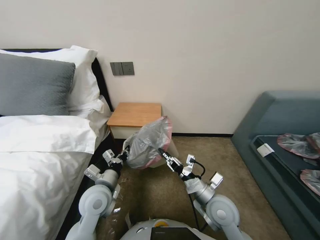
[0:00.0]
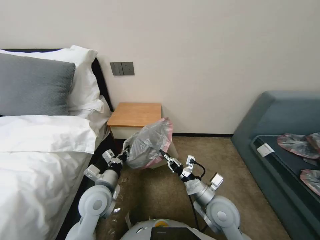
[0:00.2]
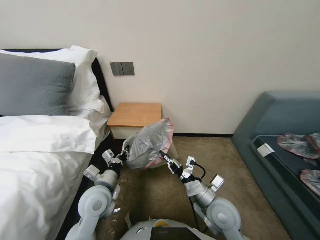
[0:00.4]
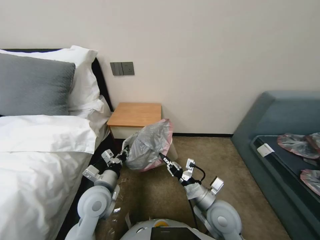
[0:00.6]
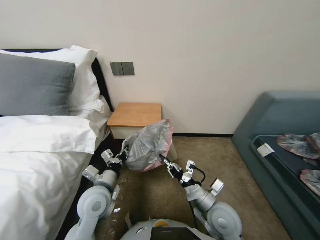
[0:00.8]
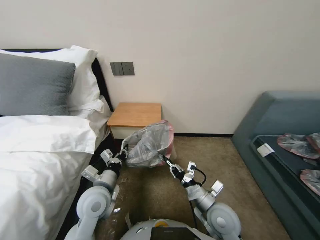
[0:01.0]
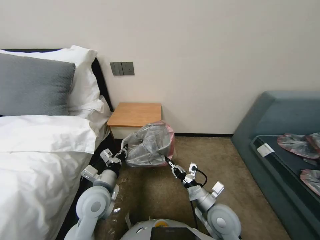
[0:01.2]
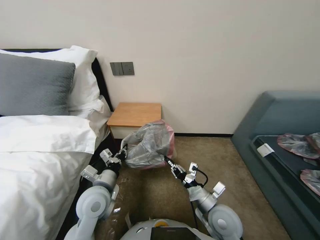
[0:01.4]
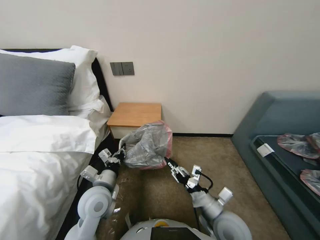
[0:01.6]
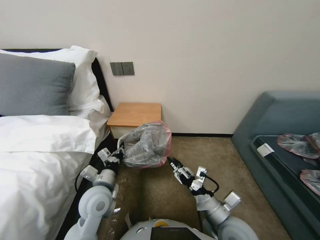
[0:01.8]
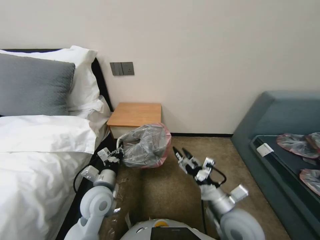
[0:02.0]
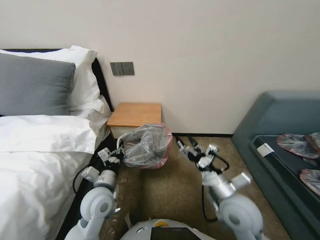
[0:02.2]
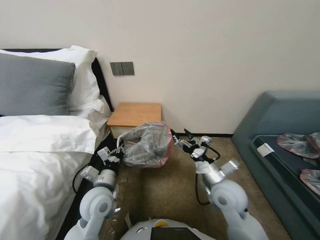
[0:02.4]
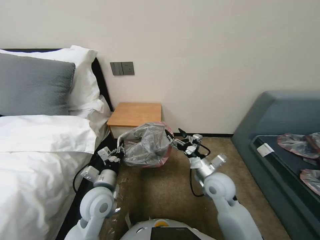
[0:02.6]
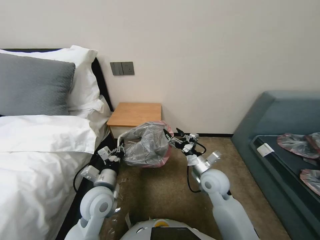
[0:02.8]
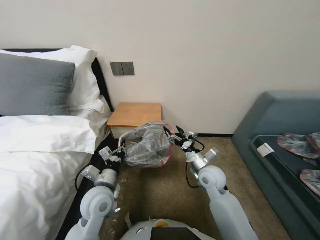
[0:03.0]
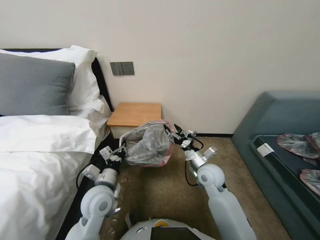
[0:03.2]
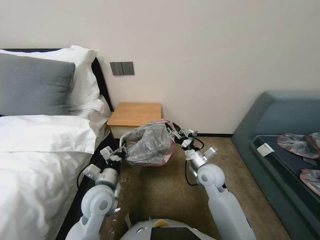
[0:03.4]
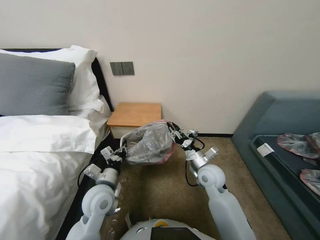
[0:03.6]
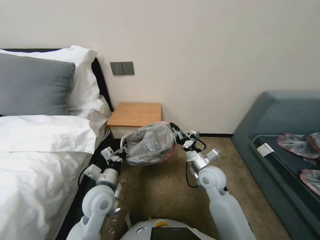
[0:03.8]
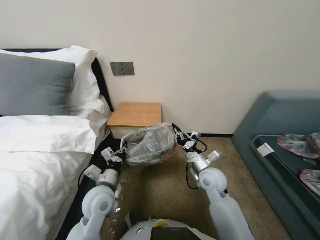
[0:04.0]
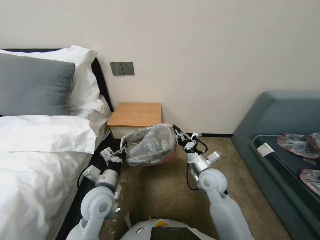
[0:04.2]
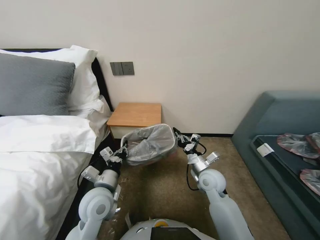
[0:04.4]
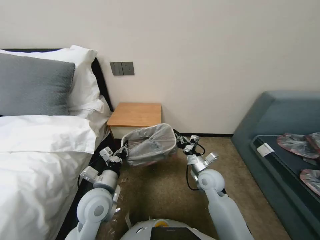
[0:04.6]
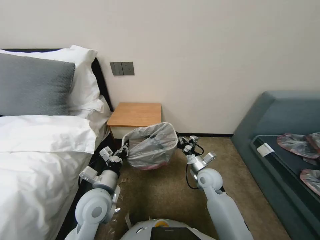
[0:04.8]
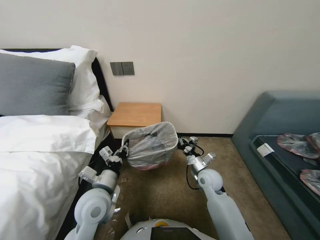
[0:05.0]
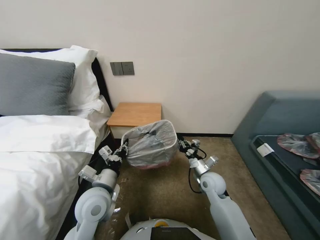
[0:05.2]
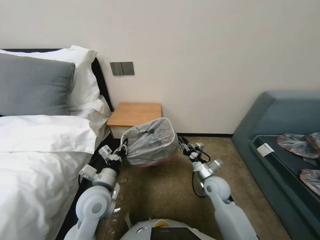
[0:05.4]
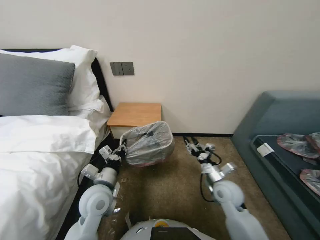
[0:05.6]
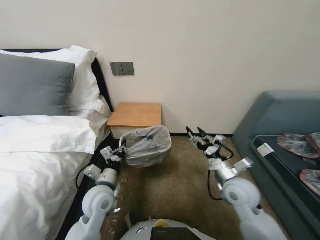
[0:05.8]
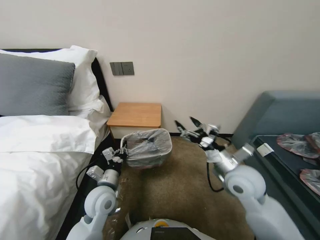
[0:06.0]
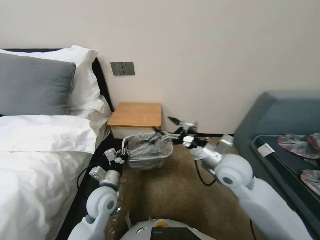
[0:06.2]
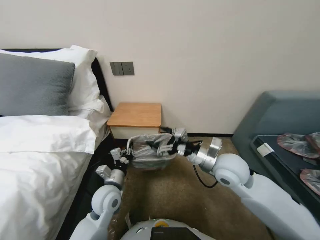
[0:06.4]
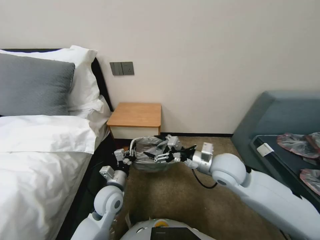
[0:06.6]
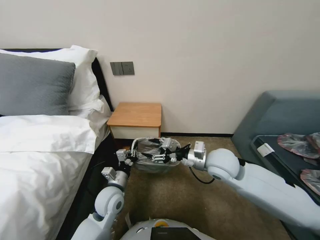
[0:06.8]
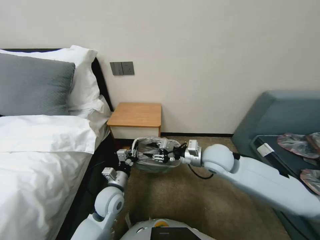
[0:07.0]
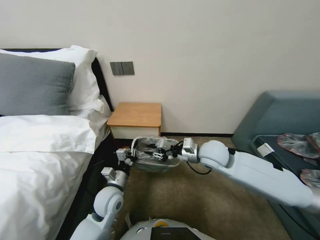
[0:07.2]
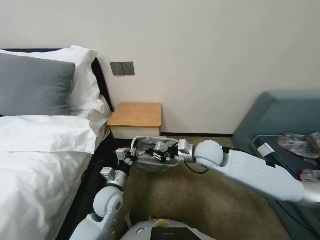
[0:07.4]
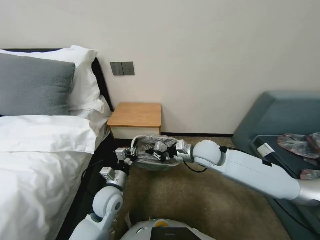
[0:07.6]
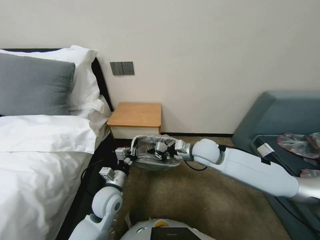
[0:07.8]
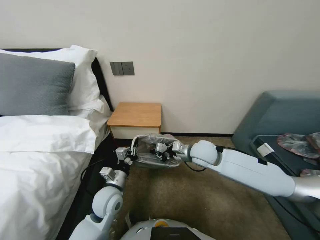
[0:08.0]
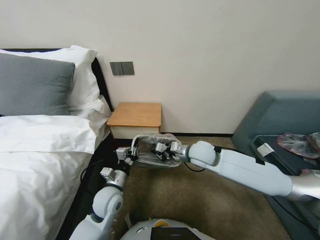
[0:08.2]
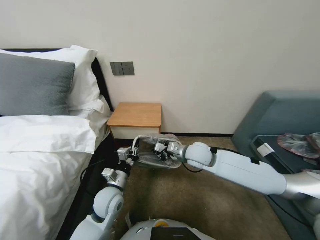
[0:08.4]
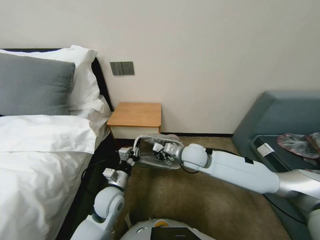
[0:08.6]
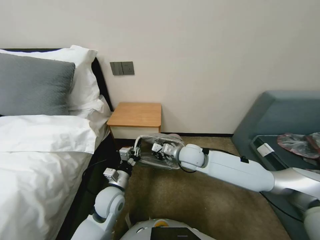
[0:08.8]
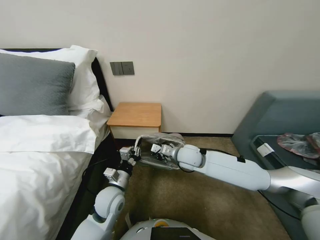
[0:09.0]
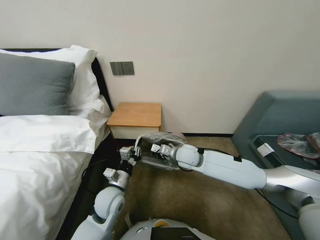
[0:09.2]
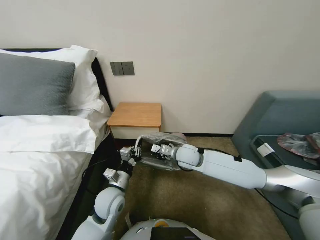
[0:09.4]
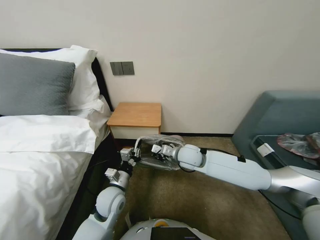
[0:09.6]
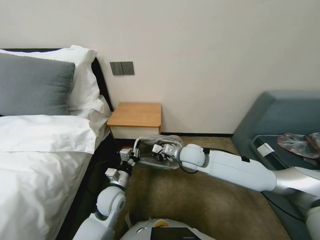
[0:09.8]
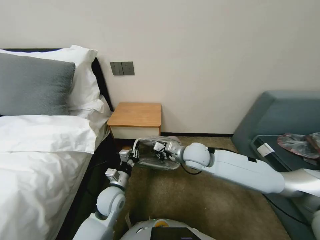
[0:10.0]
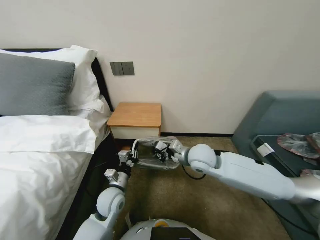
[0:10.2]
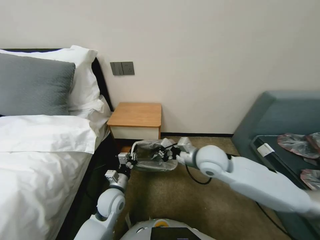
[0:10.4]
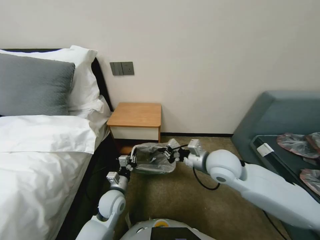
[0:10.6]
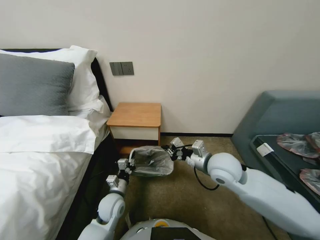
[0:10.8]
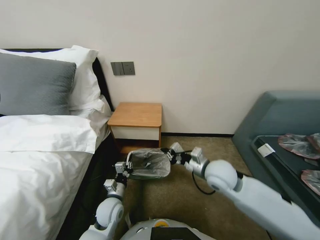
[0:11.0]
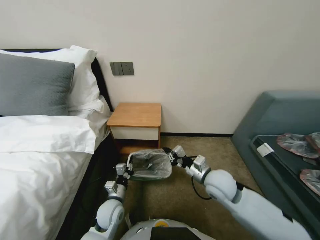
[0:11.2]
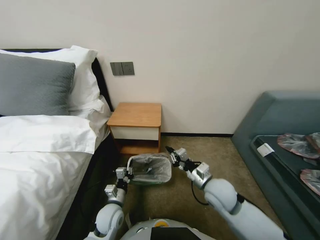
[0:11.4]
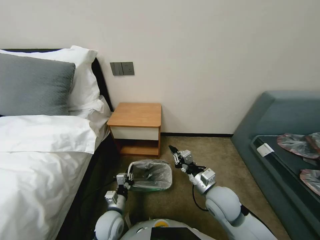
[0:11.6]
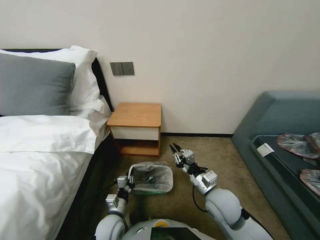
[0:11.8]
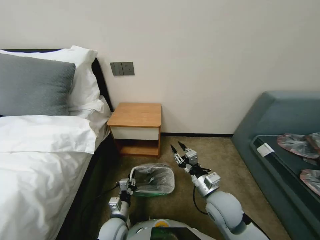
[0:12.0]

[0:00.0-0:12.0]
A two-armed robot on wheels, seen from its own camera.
Task of the whole recording: Pick up the garbage bag from the table and place it over the trash can.
0:00.0 to 0:01.6: The grippers move only a little.
0:01.6 to 0:03.0: The right gripper is displaced forward by about 15 cm, and opens its fingers.
0:03.0 to 0:04.4: The right gripper closes.
0:04.4 to 0:06.0: The right gripper shifts some 10 cm upward, backward and to the right, and opens.
0:06.0 to 0:07.6: The right gripper goes some 15 cm forward and to the left, and closes up.
0:07.6 to 0:09.0: The right gripper shifts roughly 5 cm to the left.
0:09.0 to 0:10.4: The right gripper shifts by about 5 cm.
0:10.4 to 0:12.0: The two grippers go about 15 cm backward and downward.

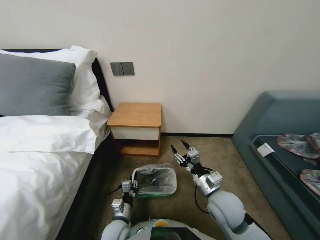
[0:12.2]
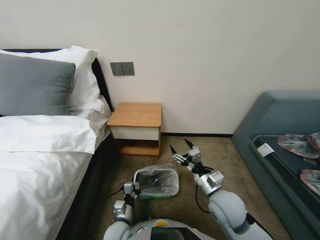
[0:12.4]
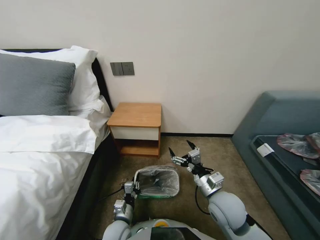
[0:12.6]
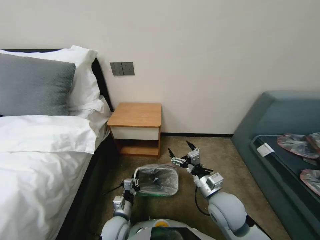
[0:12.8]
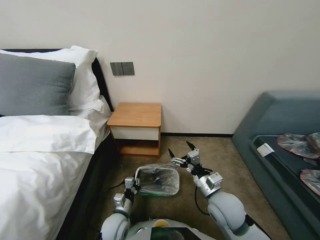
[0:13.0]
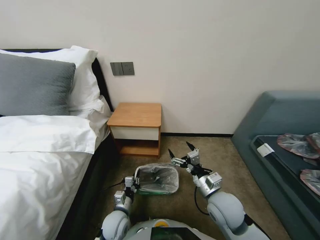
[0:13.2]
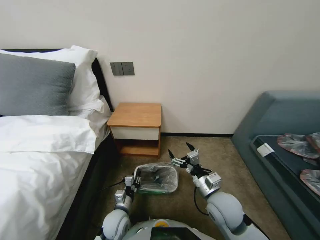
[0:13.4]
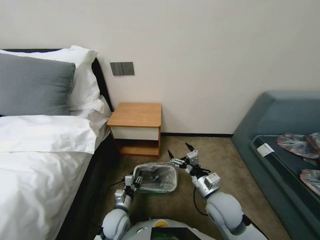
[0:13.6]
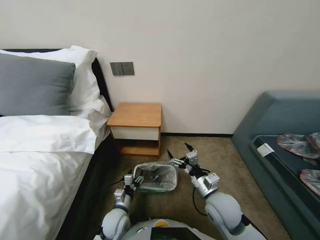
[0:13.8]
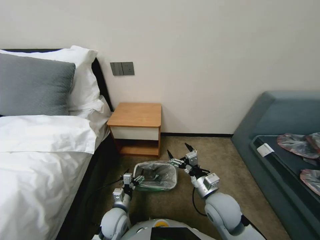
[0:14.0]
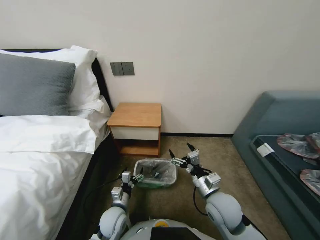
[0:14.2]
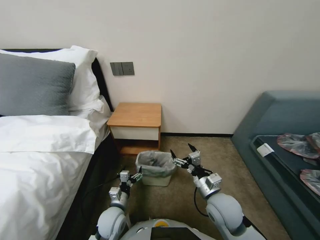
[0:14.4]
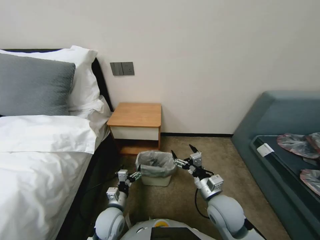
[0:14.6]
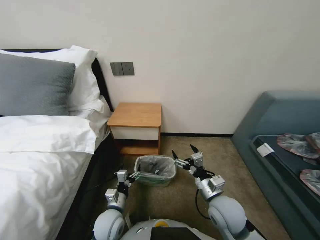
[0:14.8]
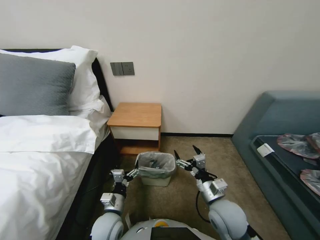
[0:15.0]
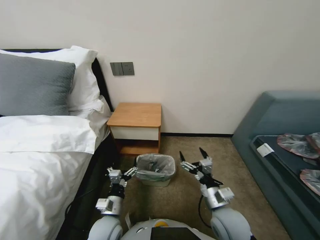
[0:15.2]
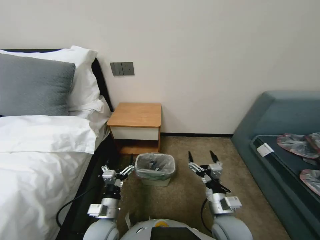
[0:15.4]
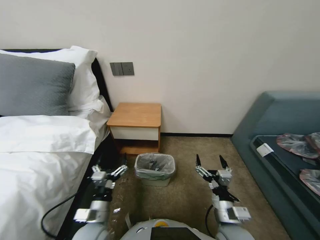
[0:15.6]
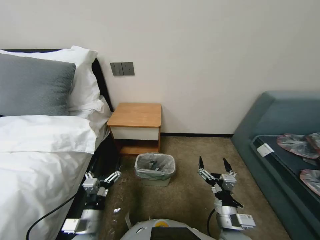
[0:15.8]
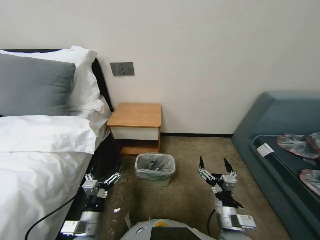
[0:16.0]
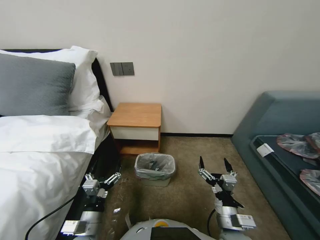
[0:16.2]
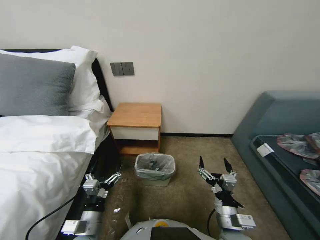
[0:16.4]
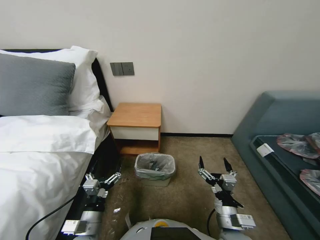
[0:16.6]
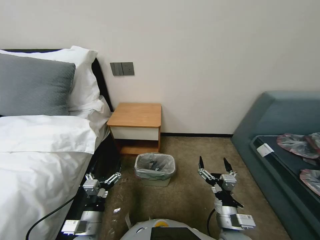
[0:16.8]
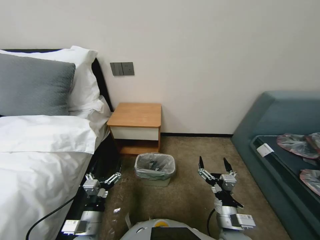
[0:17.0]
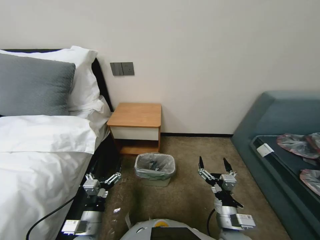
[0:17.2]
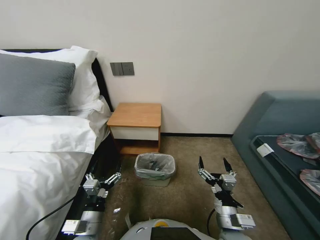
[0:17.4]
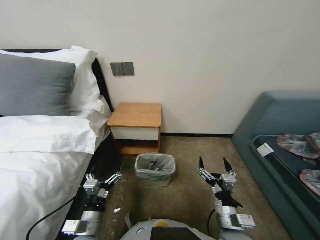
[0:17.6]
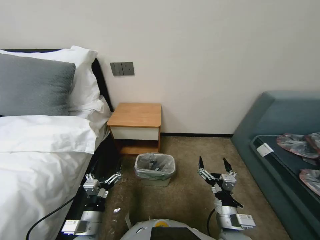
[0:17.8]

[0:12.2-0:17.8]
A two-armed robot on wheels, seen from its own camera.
Task of the whole recording: Pick up the garbage bag from the table and place it over the trash can.
0:12.2 to 0:13.6: The right gripper opens.
0:13.6 to 0:15.0: The left gripper travels upward by roughly 5 cm, and opens its fingers.
0:15.0 to 0:16.4: The two grippers go approximately 5 cm backward.
0:16.4 to 0:17.8: Neither gripper changes place.

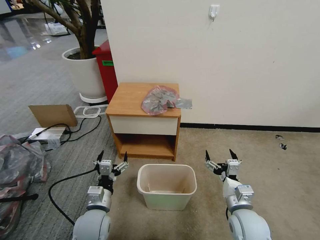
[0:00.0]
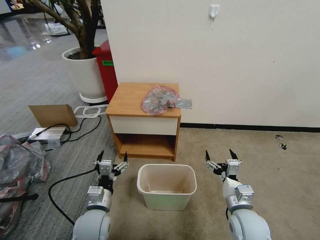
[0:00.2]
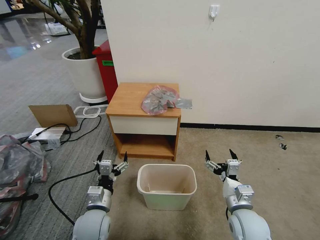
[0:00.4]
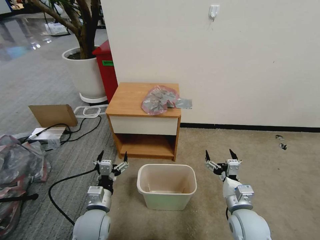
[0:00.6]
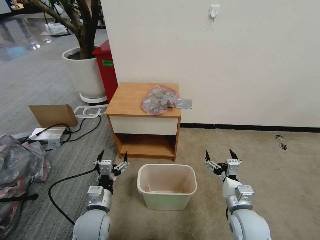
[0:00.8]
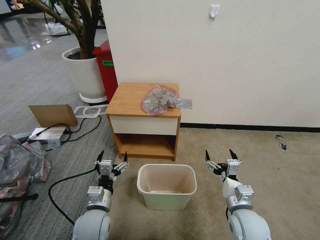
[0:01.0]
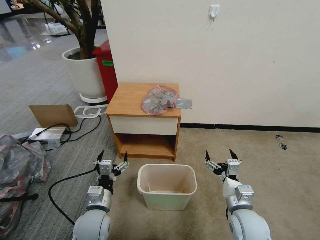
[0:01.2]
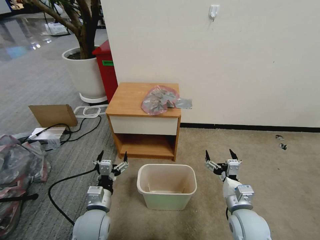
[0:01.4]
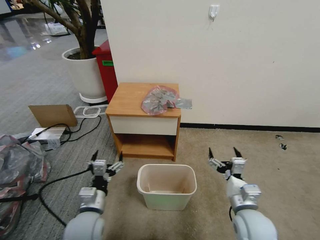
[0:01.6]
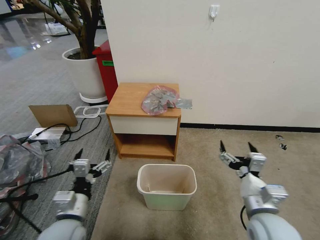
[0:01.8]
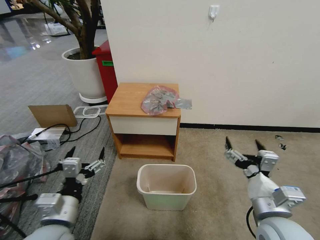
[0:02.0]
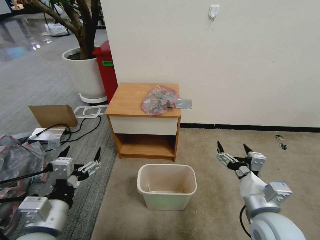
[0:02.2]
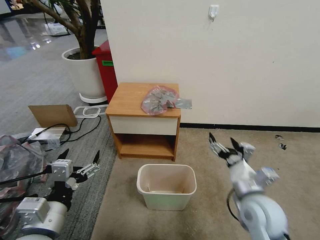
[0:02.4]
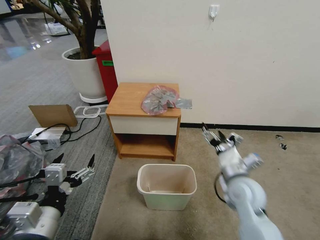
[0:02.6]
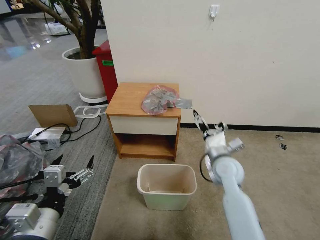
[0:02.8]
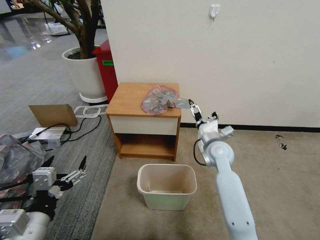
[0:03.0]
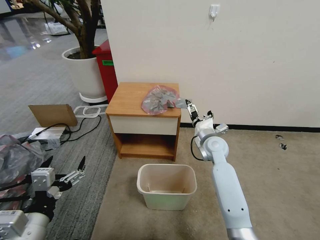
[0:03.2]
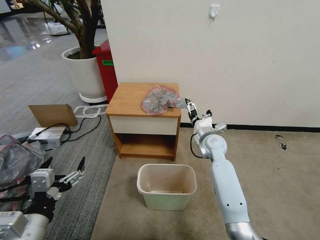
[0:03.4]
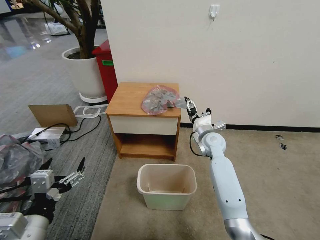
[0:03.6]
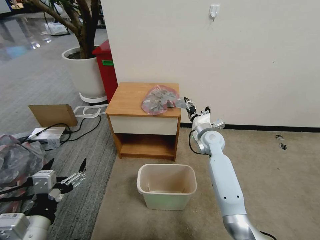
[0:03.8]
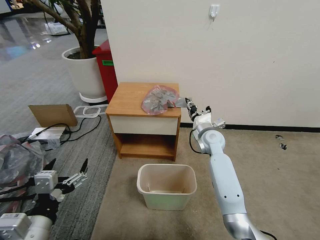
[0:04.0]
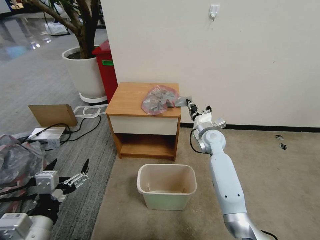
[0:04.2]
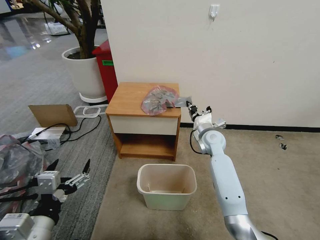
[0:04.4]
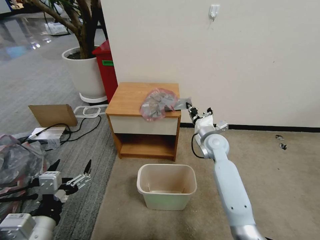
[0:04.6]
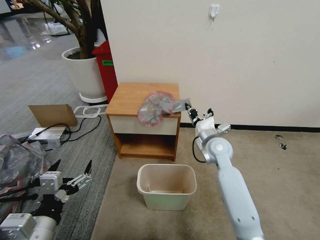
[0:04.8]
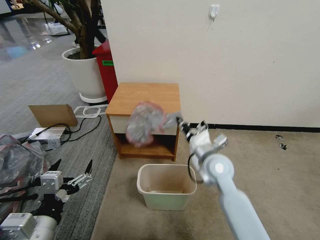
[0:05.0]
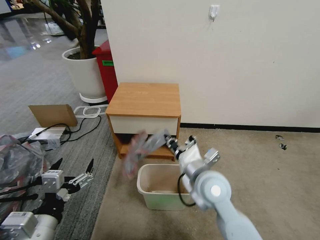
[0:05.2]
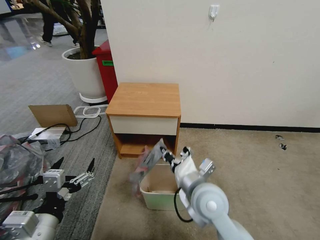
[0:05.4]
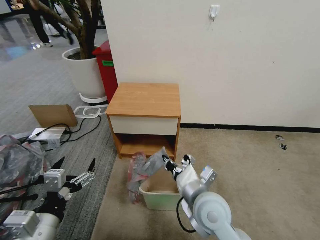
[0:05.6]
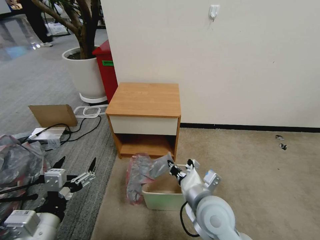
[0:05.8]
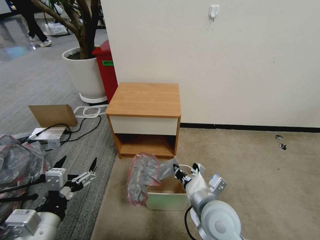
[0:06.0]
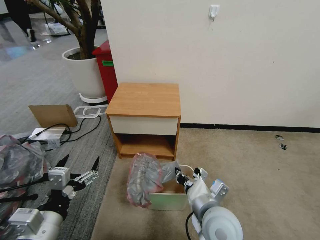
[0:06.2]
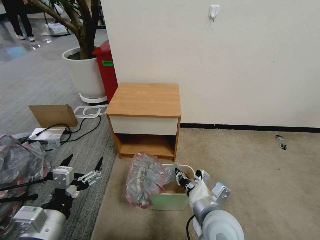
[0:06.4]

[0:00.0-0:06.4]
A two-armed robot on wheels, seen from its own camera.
Task of the whole recording: Pick up the garbage bag from the table and place it over the trash can.
0:01.6 to 0:03.2: The left gripper heads upward, backward and to the left, covering approximately 15 cm; the right gripper is displaced forward by approximately 25 cm.
0:03.2 to 0:04.8: The right gripper closes its fingers.
0:04.8 to 0:06.4: The right gripper is displaced backward by some 25 cm.
